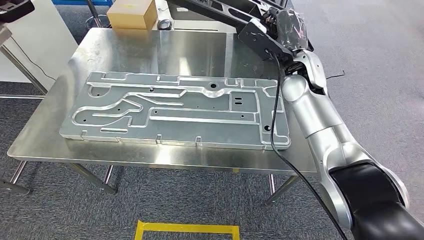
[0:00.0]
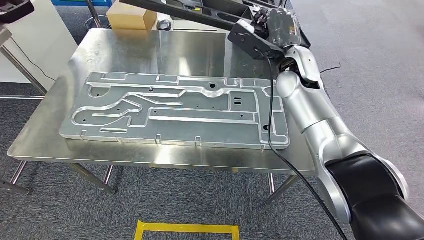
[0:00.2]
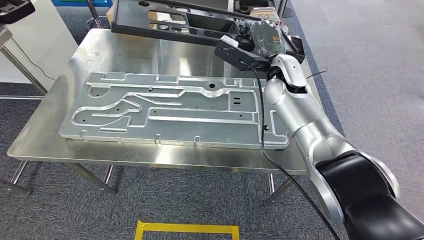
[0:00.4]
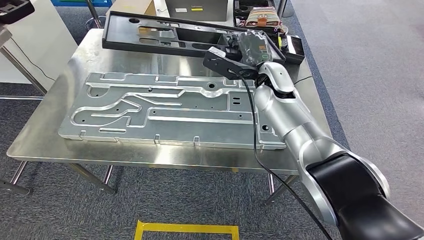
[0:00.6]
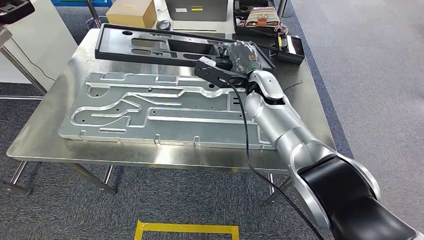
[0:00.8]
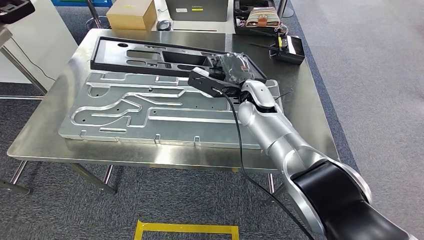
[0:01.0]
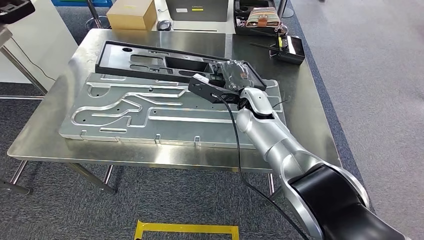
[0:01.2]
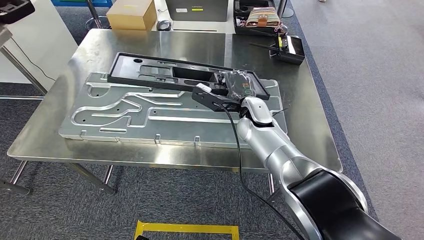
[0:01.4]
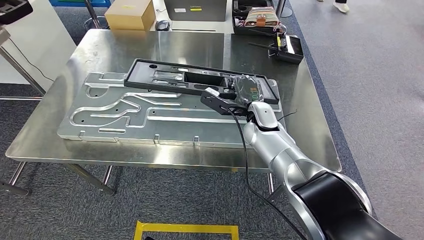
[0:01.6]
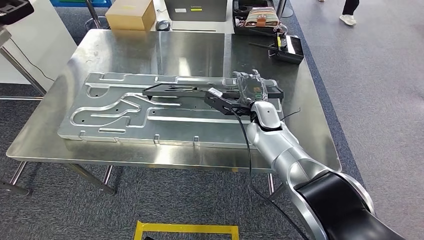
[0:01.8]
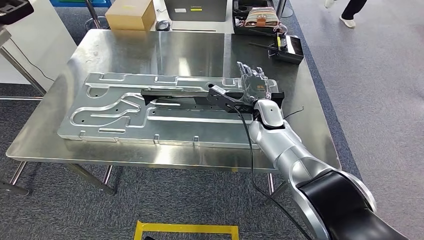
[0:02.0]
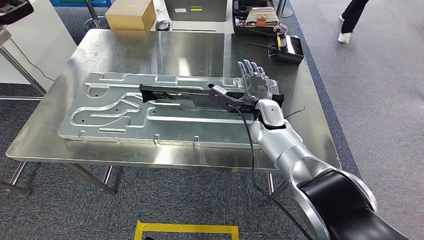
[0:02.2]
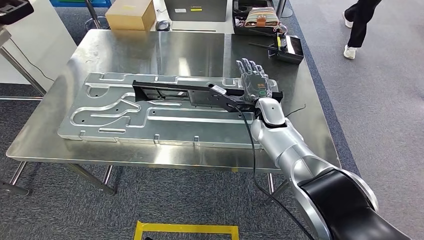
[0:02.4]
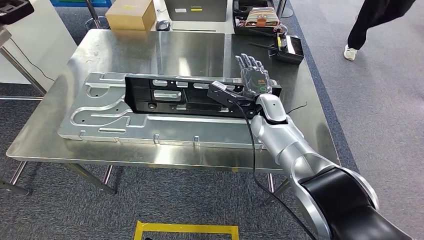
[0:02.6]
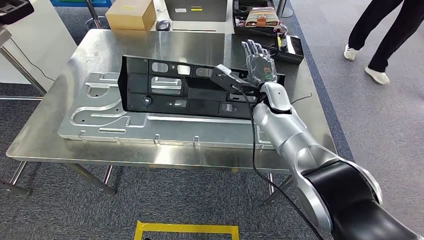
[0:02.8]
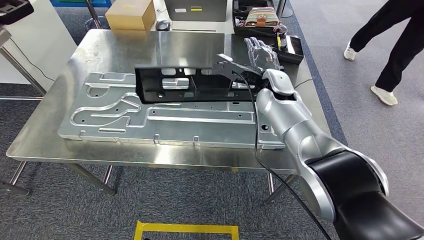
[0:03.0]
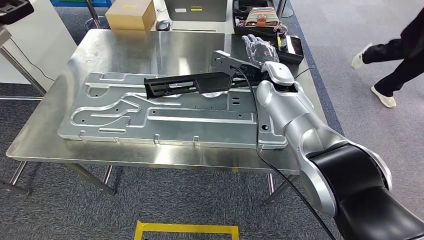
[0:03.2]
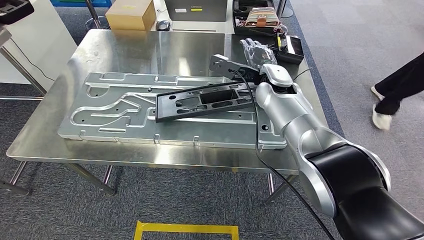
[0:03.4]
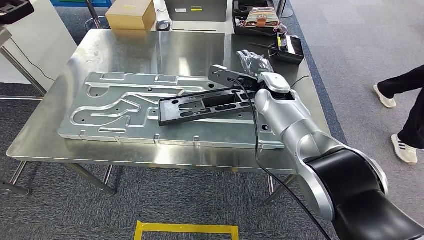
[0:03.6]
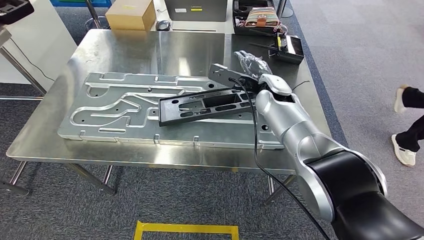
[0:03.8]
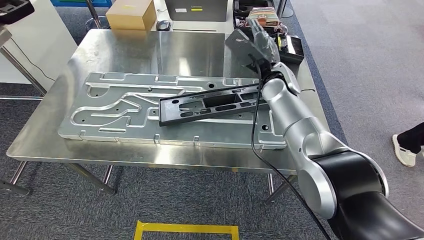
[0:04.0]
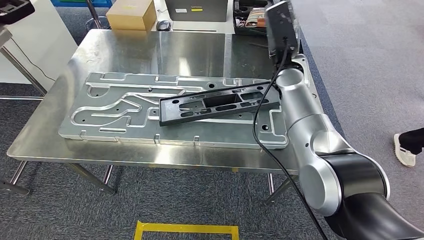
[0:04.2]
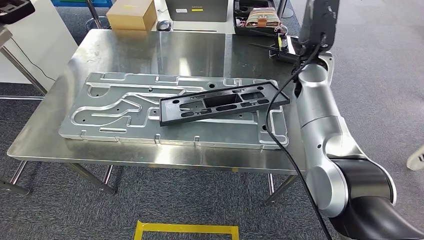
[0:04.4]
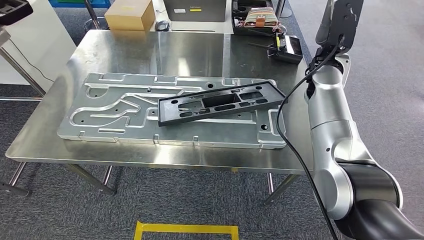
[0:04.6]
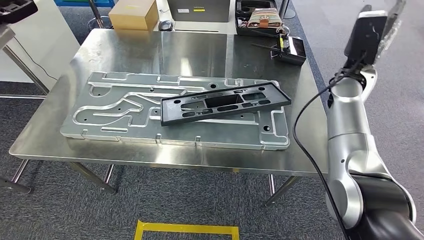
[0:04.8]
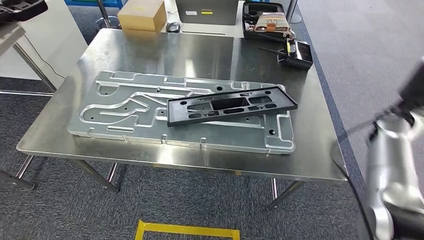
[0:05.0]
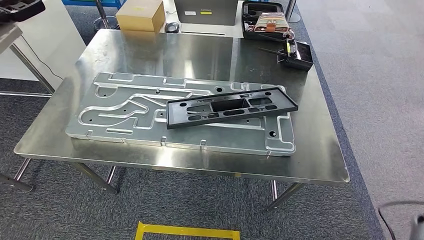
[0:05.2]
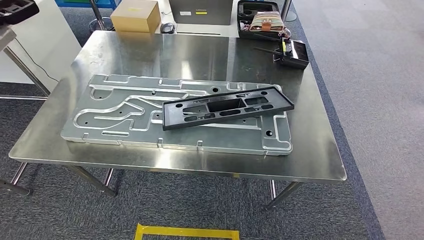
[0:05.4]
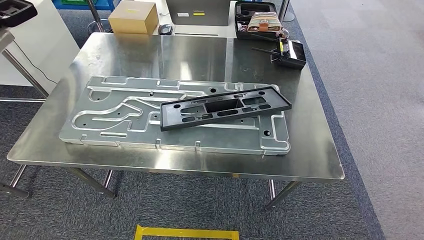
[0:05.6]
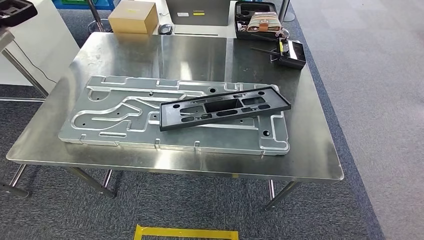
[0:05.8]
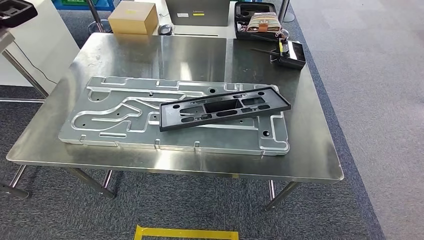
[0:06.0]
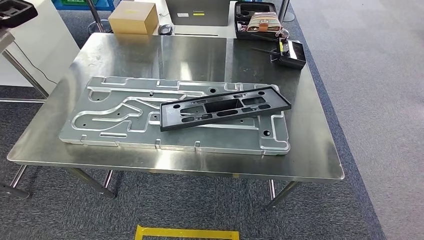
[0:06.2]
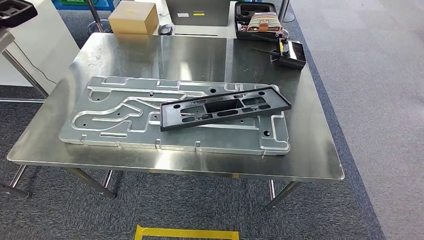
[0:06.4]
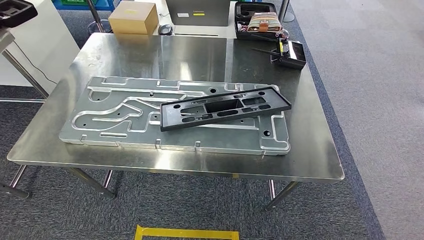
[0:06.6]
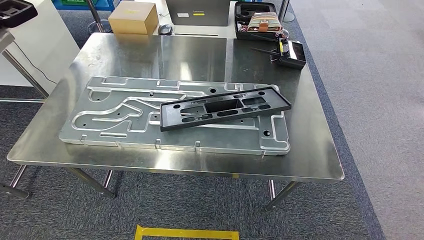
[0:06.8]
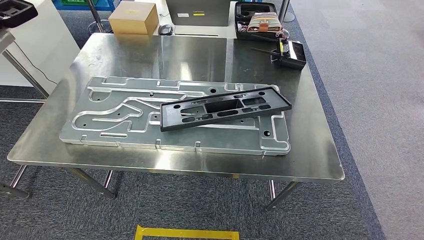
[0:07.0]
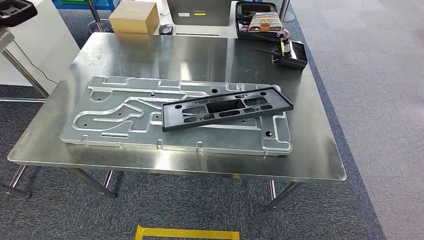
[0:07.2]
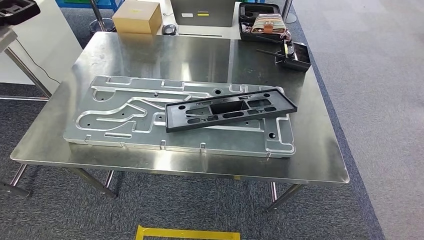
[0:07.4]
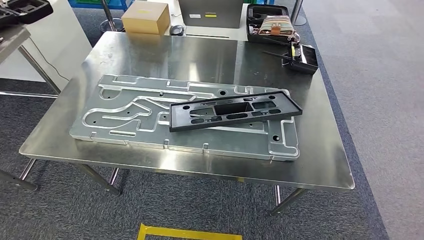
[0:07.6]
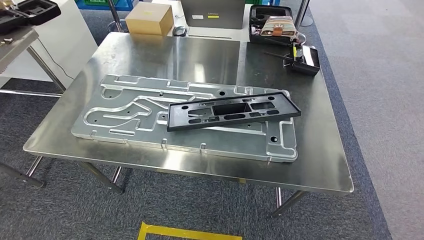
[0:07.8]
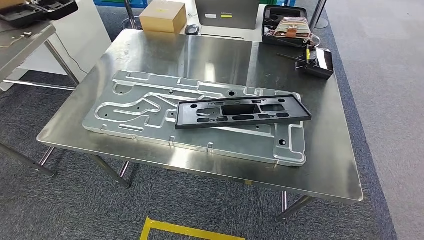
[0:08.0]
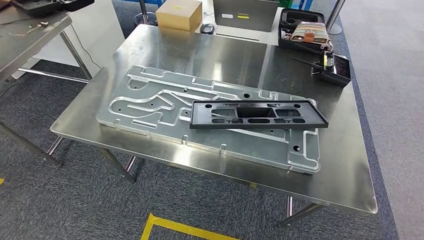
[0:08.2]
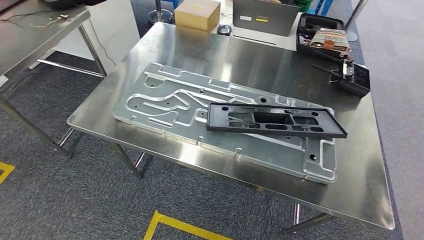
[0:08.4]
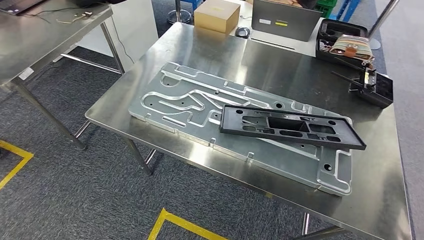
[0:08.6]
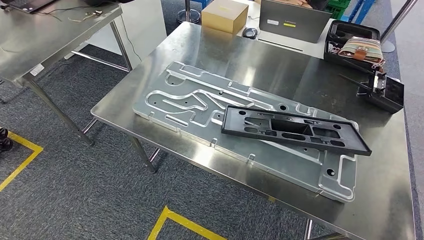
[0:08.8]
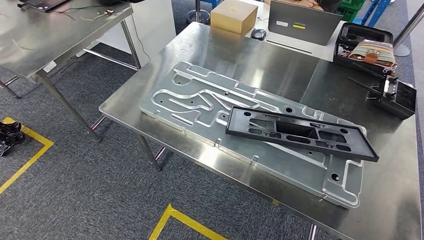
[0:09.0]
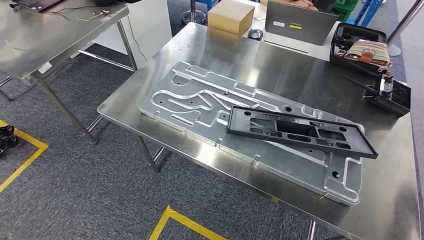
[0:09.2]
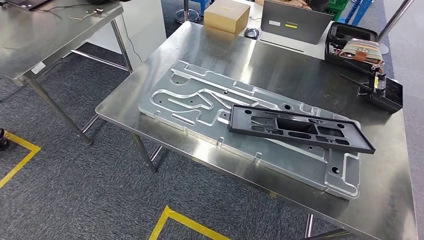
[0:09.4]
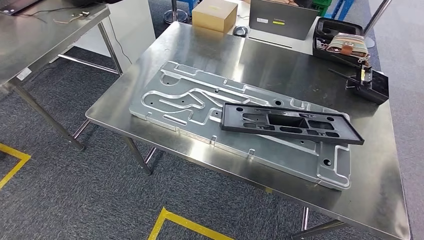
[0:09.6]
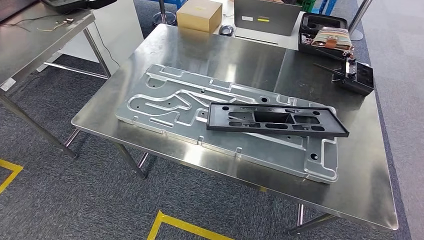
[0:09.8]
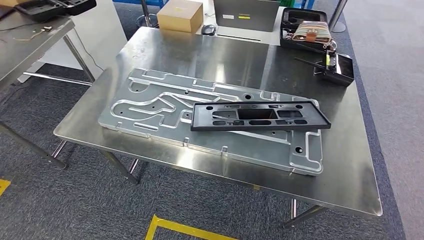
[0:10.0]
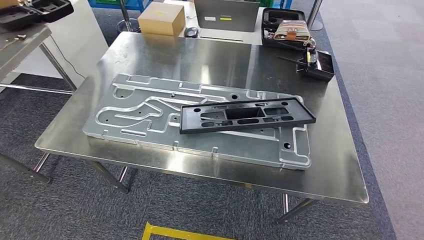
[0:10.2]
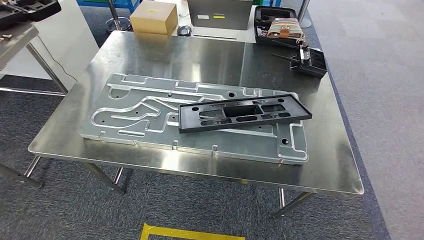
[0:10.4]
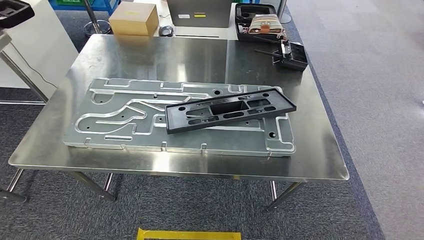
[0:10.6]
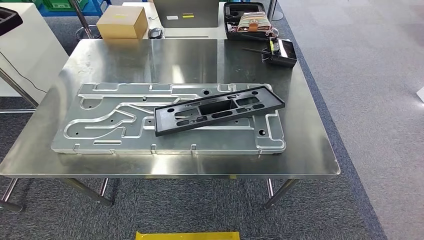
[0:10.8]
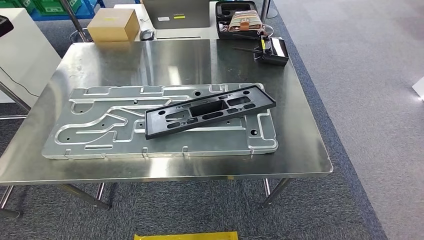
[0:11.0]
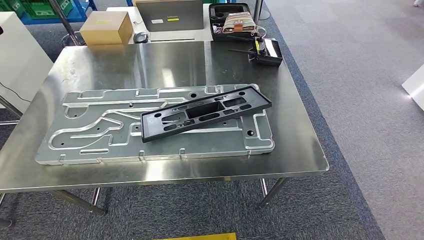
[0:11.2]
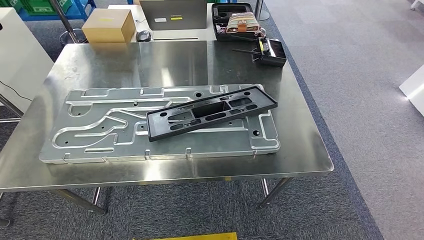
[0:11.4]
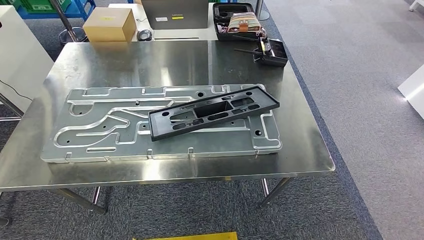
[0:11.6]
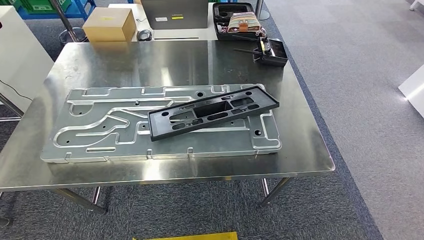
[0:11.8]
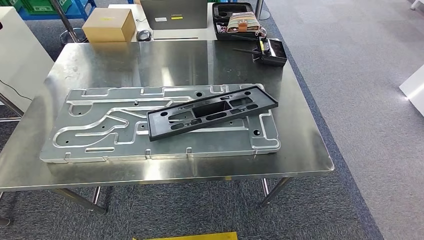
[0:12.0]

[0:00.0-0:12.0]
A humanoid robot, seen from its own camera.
Step, 0:00.0 to 0:04.0: Insert the large material into the corresponding slot on the workbench.

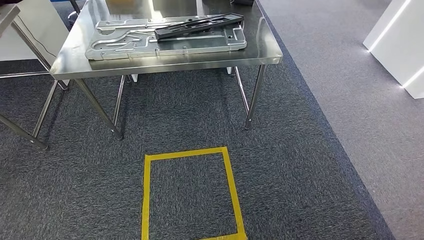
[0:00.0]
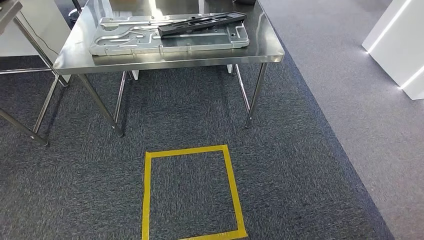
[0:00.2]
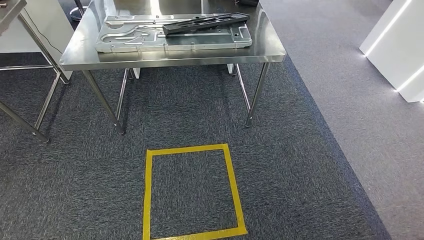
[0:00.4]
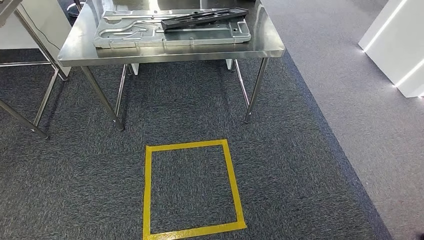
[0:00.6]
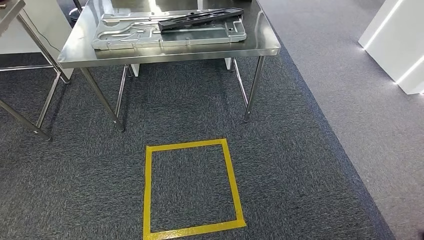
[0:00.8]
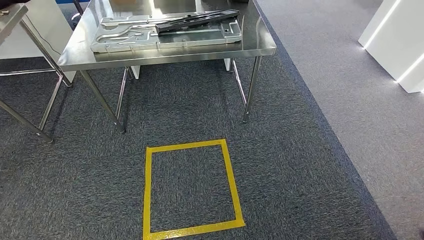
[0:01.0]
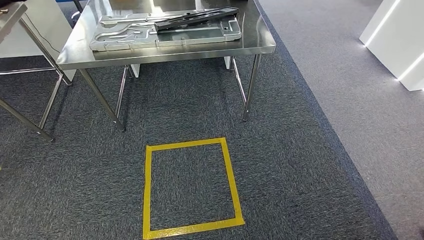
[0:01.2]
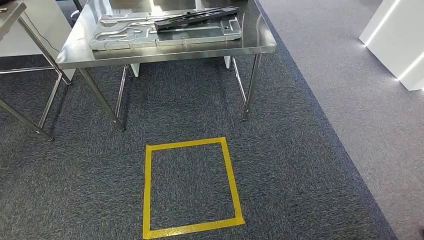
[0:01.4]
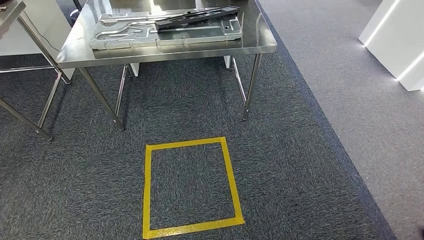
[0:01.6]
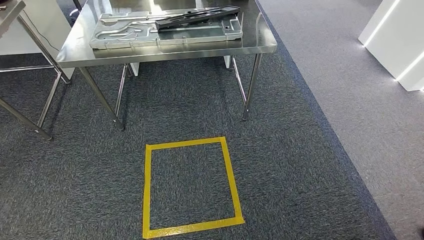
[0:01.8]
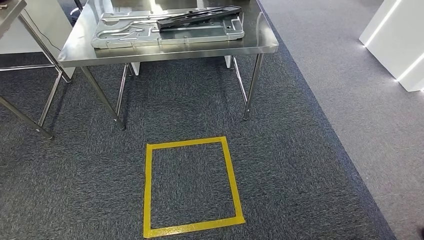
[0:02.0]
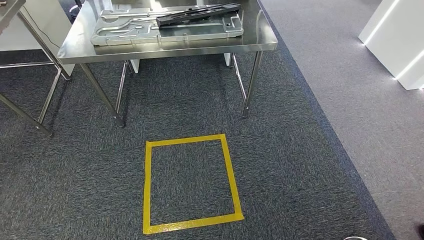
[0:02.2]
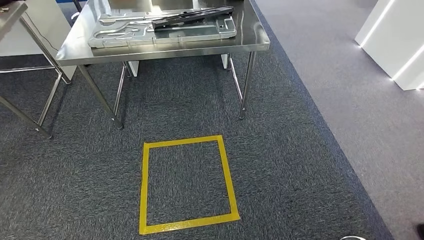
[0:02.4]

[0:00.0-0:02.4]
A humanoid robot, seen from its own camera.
Step, 0:00.0 to 0:02.4: Return to the initial position at the shelf.
0:00.0 to 0:02.4: Neither hand changes place.
